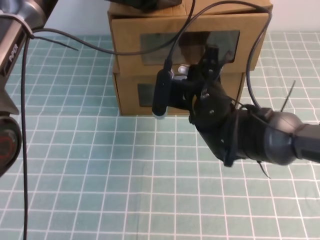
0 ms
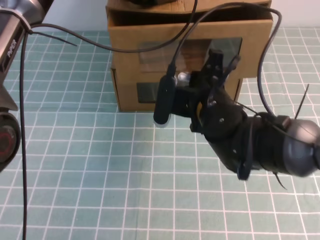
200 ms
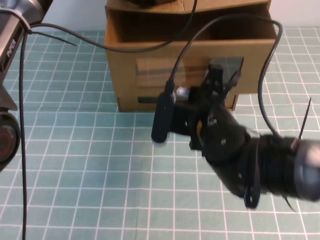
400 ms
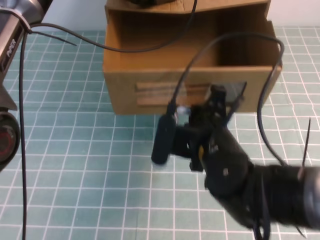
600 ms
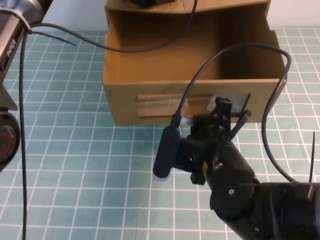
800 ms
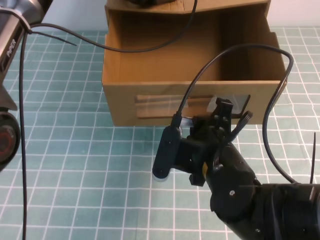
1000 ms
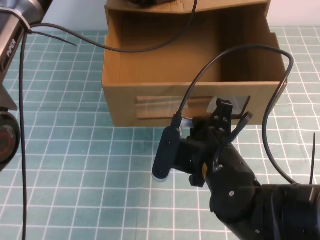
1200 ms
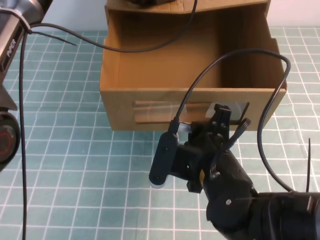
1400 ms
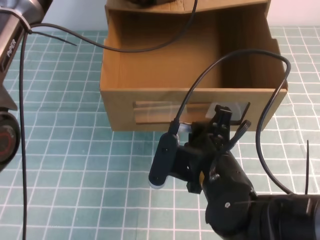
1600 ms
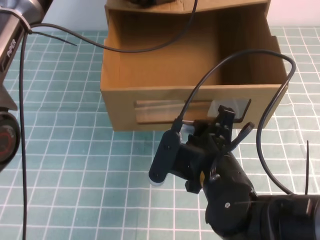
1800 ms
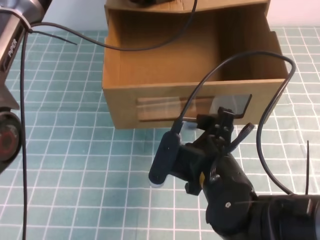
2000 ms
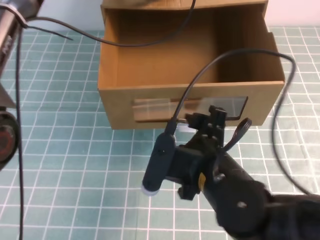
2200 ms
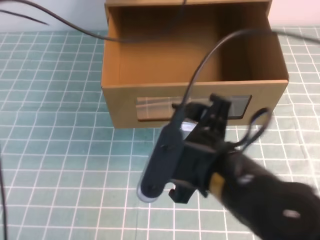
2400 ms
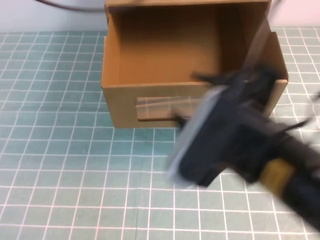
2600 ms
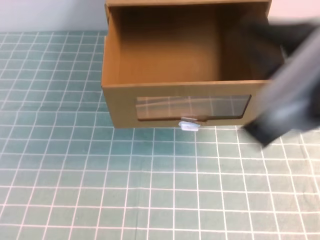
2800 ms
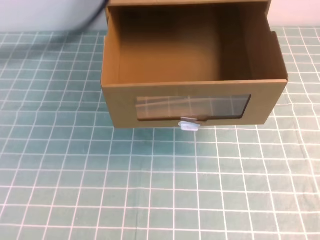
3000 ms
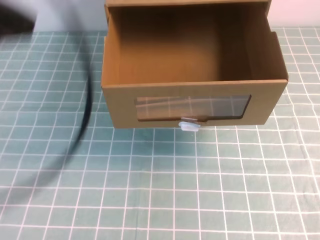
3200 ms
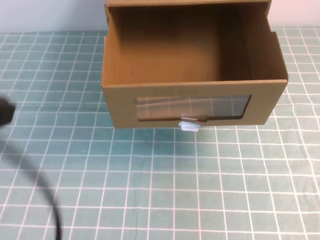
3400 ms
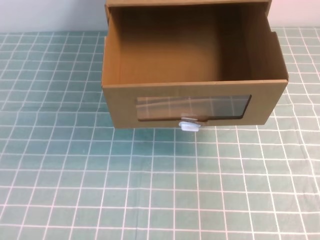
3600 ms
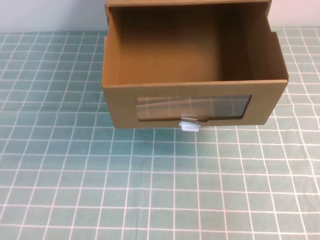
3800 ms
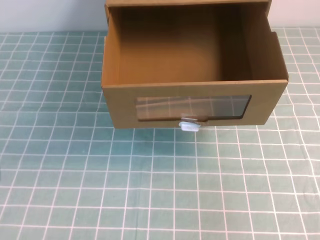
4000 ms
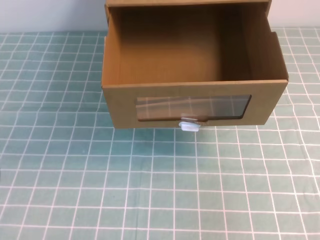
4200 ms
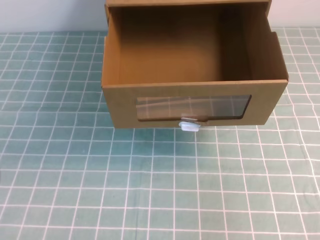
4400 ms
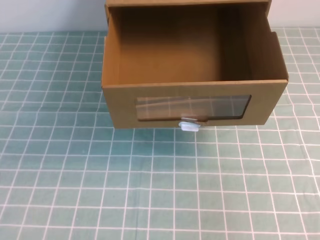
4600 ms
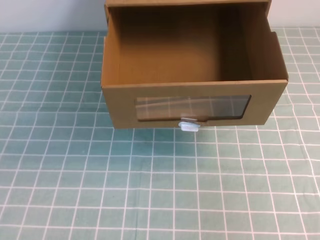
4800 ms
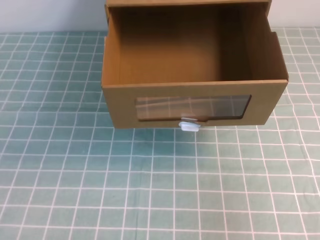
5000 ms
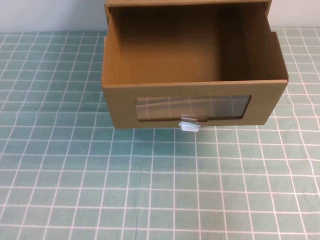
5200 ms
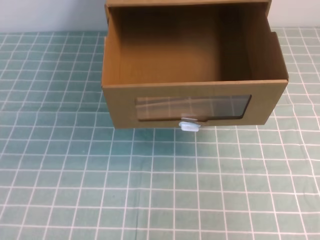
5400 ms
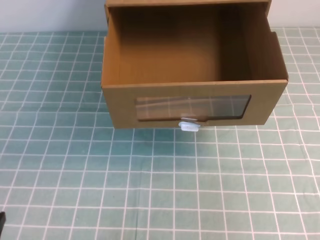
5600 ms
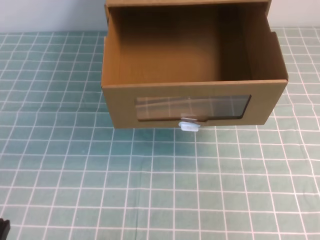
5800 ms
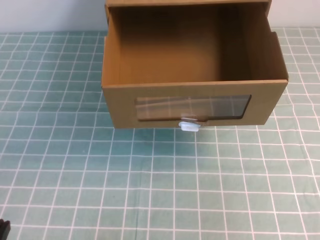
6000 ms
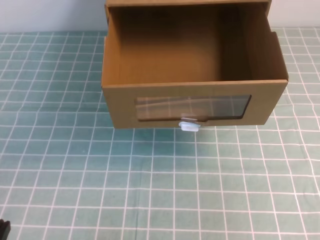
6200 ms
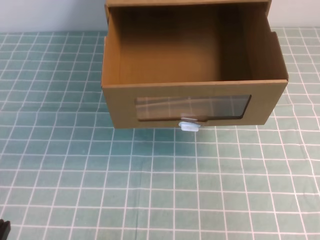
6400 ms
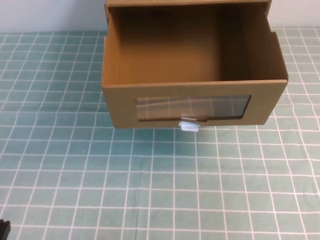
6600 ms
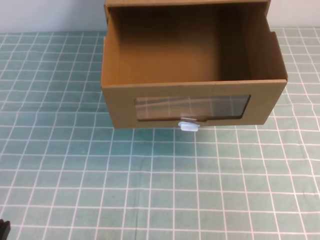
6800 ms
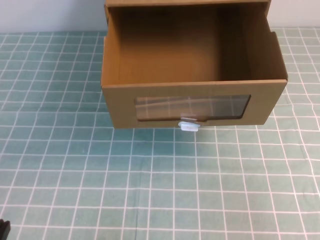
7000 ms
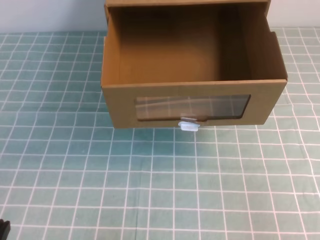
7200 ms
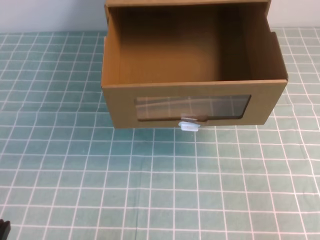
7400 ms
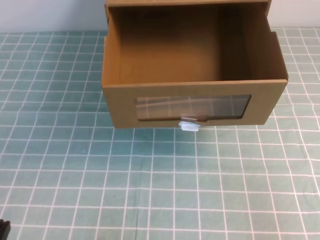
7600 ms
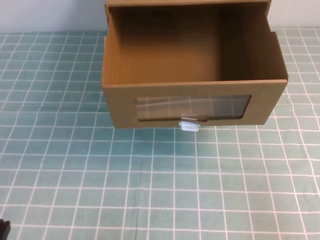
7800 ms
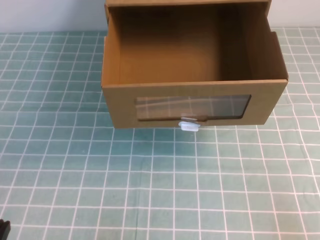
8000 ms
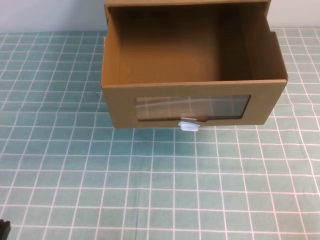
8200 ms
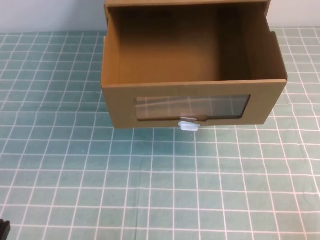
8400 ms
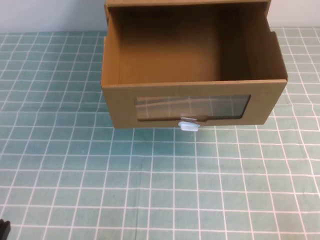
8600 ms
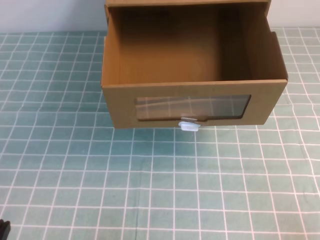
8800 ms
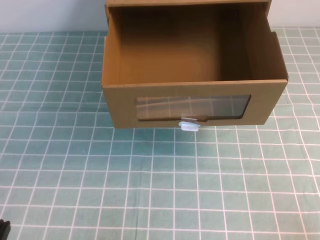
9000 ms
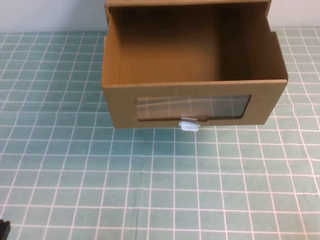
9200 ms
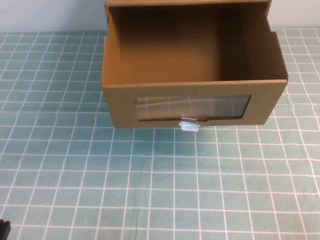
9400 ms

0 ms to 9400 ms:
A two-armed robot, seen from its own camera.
Task of the whole recording: open the shoebox on the cyan tablecloth.
Step, 0 ms to 9400 ms: Open the shoe box.
0 ms to 1600 ms: The right gripper goes about 15 cm backward.
1600 ms to 3200 ms: The right gripper shifts approximately 30 cm upward, to the right and backward, and opens, then closes again. Meanwhile the left gripper moves backward, upward and to the left, about 35 cm.
3200 ms to 4800 ms: The left gripper travels downward and backward by roughly 20 cm. The right gripper heads downward, covering roughly 15 cm.

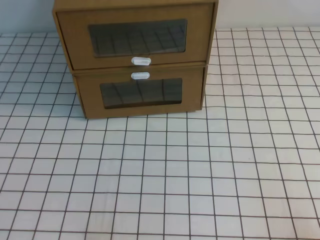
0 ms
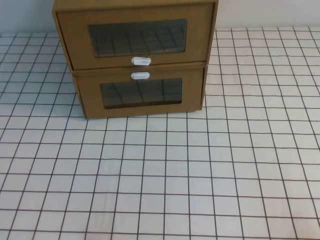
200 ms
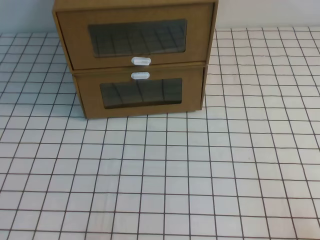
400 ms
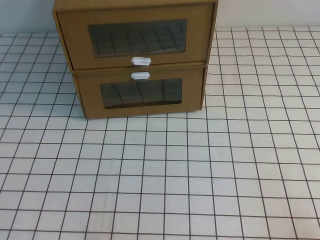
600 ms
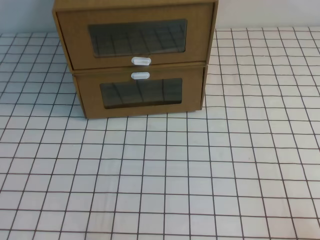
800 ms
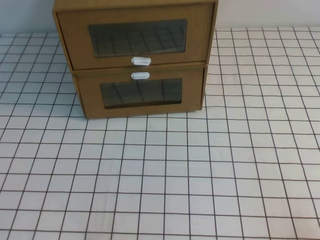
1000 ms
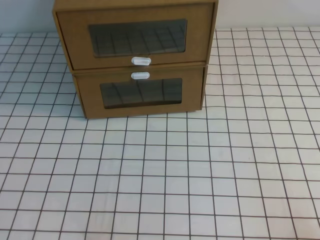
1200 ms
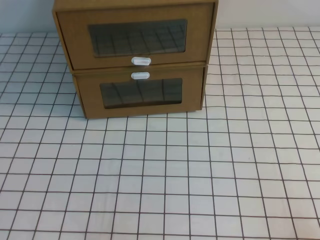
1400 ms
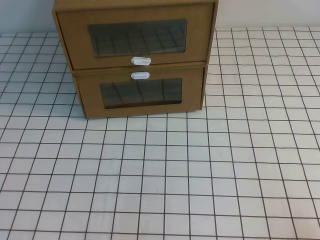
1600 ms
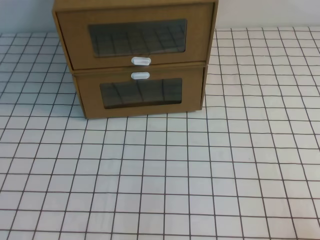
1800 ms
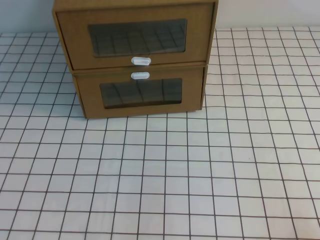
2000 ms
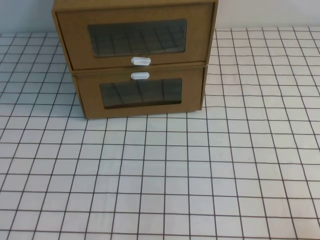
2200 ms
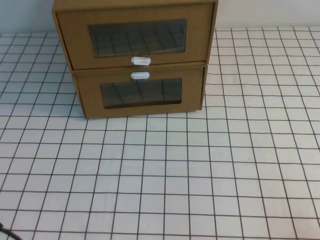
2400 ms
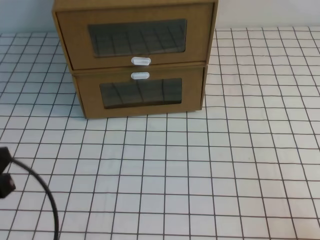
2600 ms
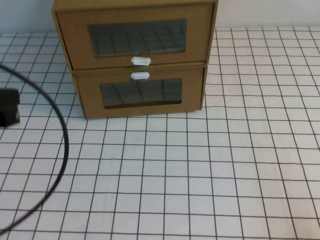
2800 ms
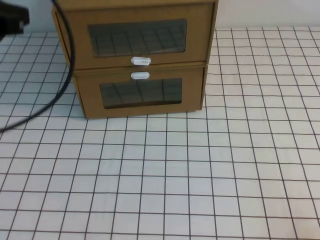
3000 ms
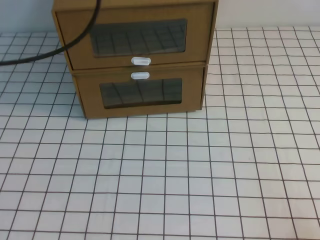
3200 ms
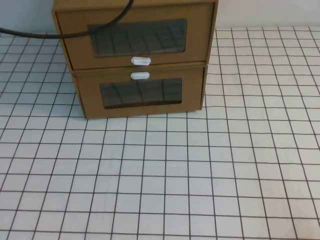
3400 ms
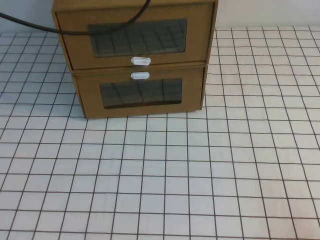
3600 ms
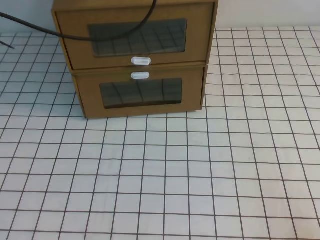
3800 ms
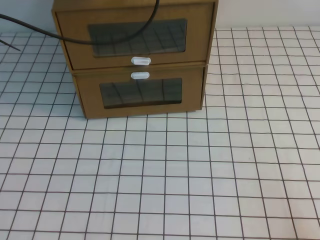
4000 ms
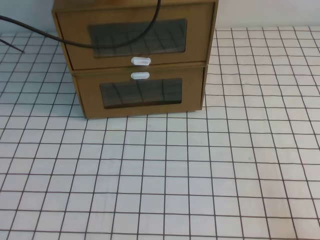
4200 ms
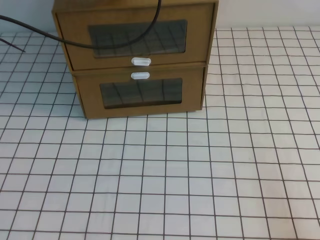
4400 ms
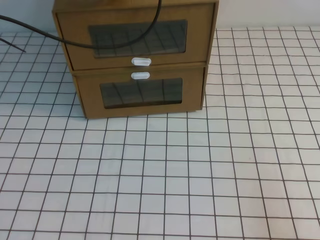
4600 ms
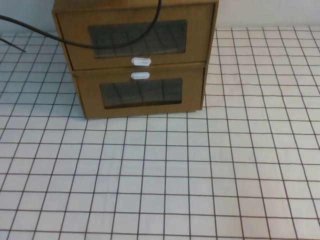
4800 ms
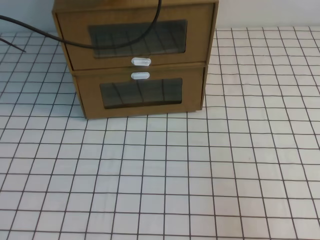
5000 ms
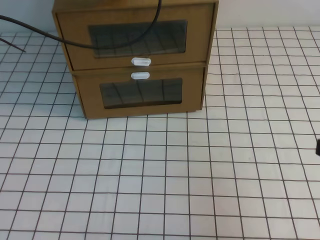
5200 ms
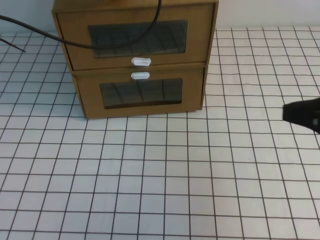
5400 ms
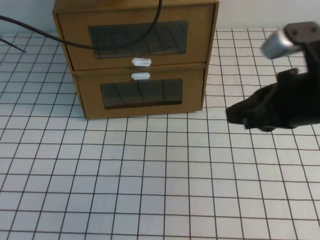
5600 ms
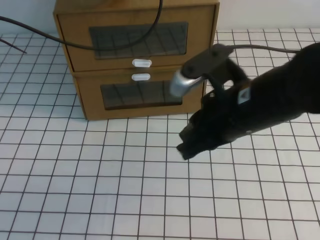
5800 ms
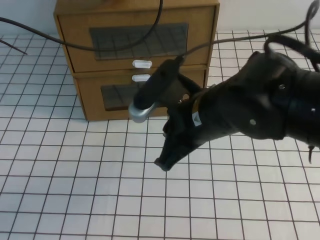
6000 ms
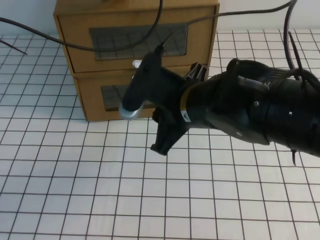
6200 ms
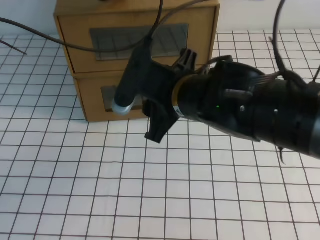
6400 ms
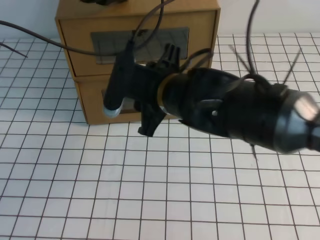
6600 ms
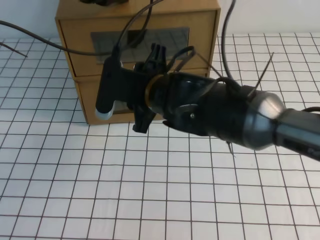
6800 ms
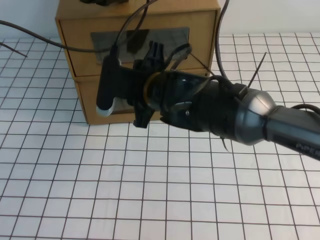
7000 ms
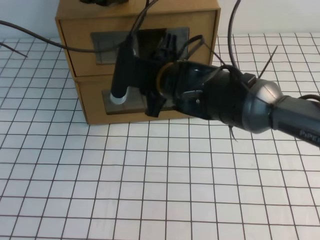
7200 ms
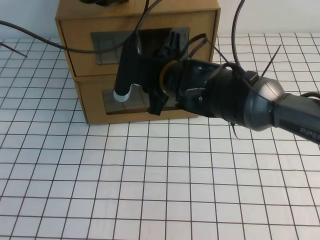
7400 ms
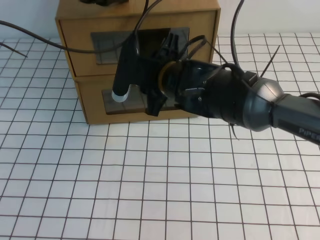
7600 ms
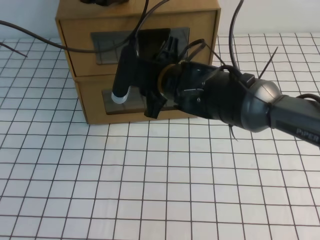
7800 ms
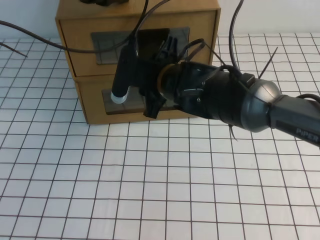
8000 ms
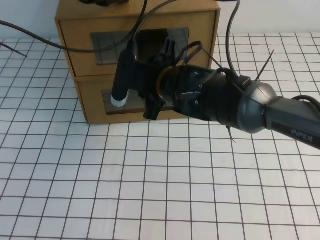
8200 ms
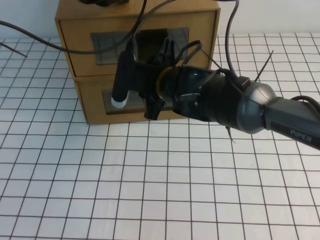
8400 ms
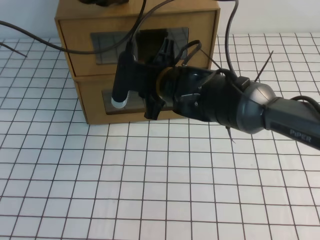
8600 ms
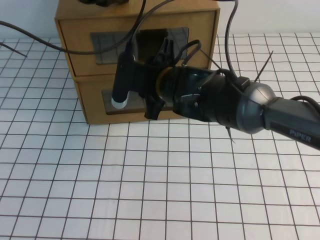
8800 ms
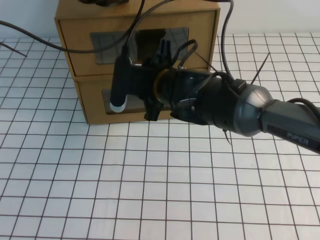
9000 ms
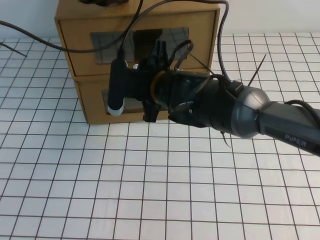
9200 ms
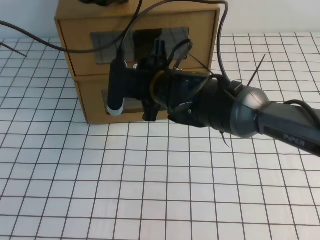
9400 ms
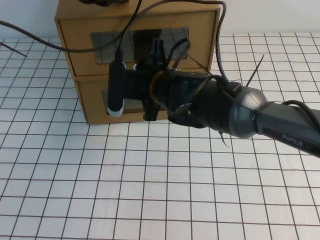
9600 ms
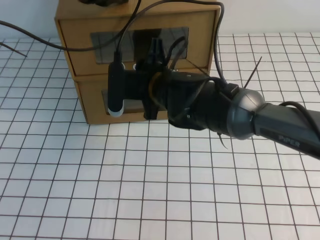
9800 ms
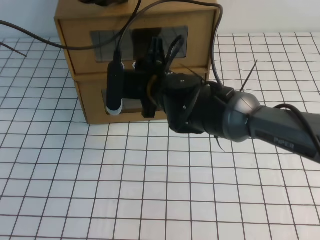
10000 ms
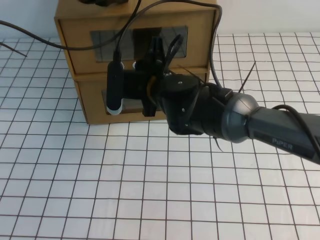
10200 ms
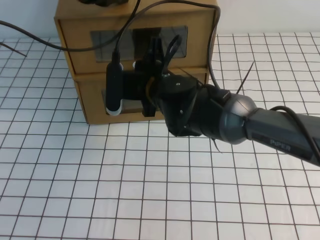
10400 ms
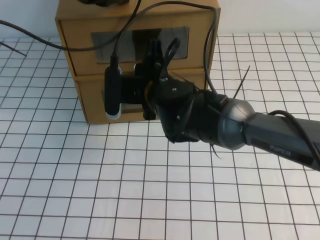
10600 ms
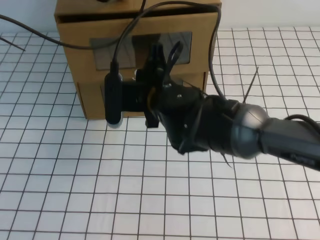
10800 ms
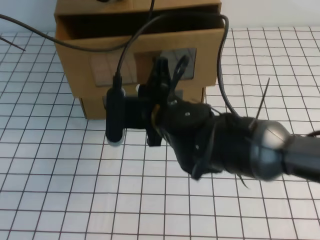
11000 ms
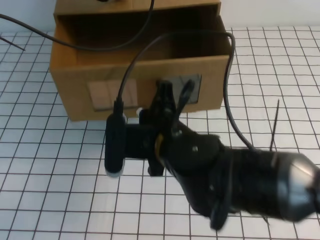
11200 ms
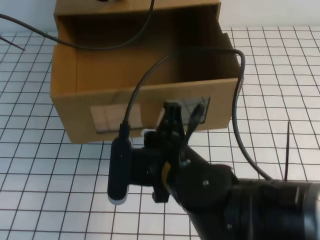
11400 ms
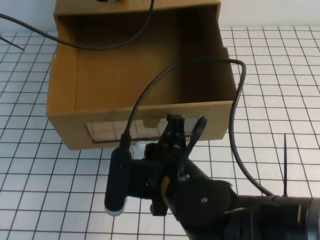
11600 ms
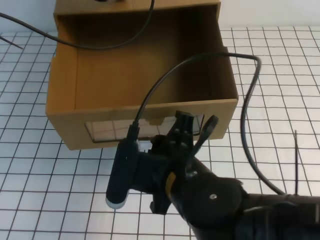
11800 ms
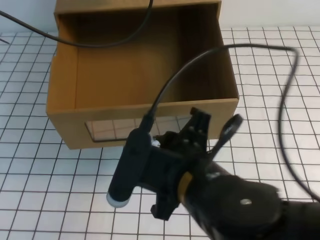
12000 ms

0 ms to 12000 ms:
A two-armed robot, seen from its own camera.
Task of the whole recording: open the shoebox on the white tablecloth.
1600 ms to 3000 ms: The left gripper moves upward and forward, some 30 cm.
3000 ms to 4400 ms: The left gripper travels forward and to the right by approximately 20 cm.
4400 ms to 6000 ms: The right gripper travels to the left, forward and upward by roughly 35 cm.
6000 ms to 7600 ms: The right gripper moves forward and to the left, about 15 cm, and opens.
7600 ms to 9000 ms: The grippers stay close to where they were, moving slightly.
9000 ms to 10400 ms: The right gripper closes.
10400 ms to 12000 ms: The right gripper travels backward by some 20 cm.

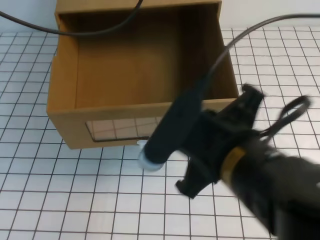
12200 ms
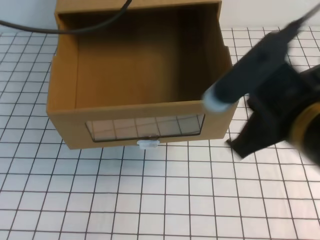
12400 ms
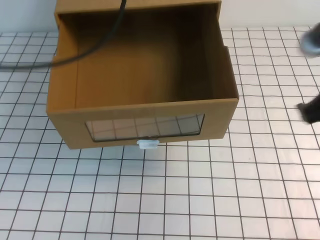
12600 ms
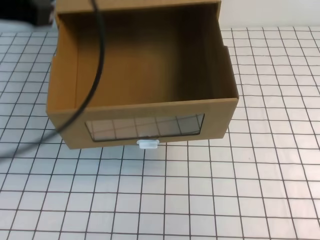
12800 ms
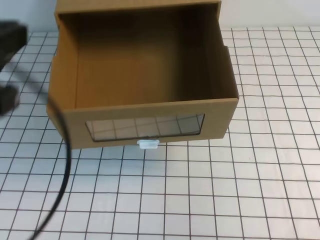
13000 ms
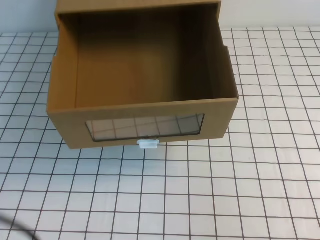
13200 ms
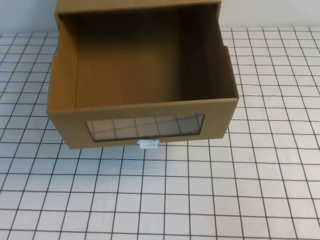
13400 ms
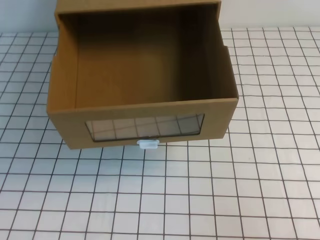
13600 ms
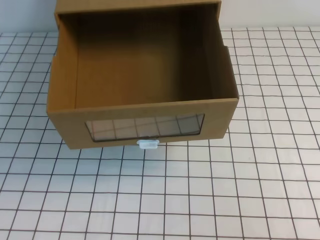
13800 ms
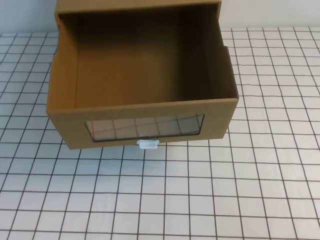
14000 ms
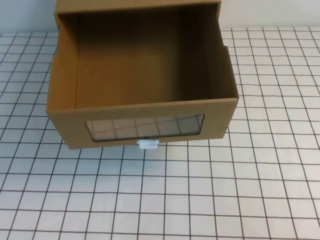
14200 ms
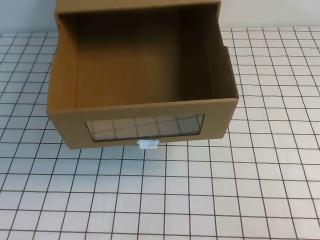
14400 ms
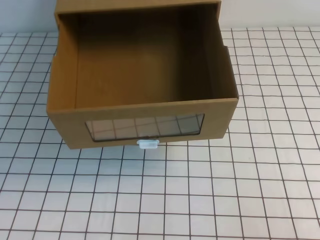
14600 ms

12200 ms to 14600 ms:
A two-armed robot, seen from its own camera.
Task of the whole recording: open the shoebox on the white tablecloth.
12200 ms to 13400 ms: The right gripper moves to the right, about 20 cm. Meanwhile the left gripper moves backward, some 30 cm.
